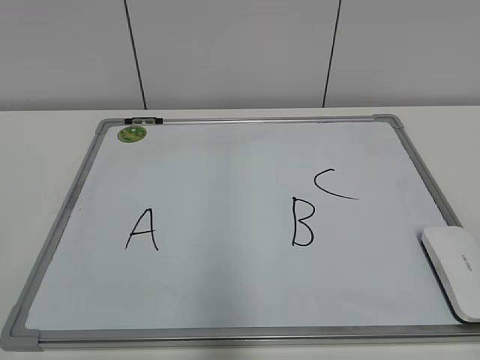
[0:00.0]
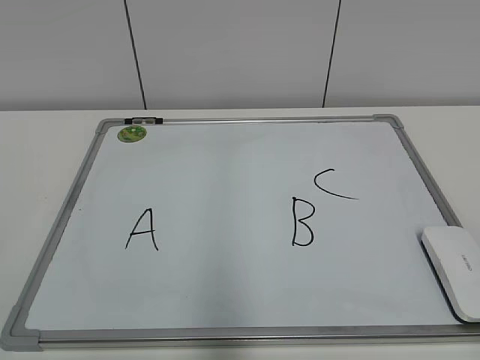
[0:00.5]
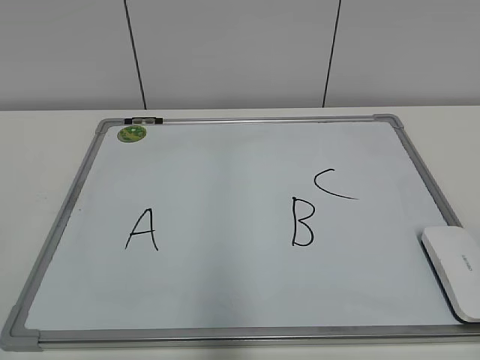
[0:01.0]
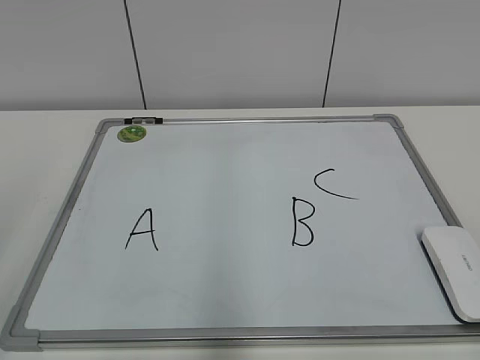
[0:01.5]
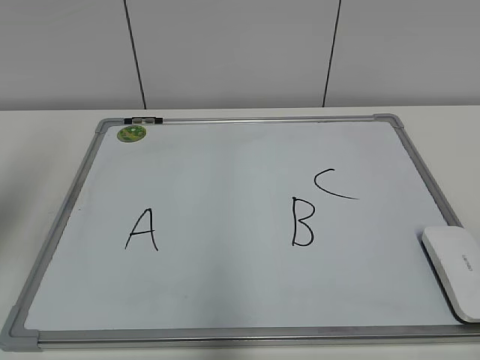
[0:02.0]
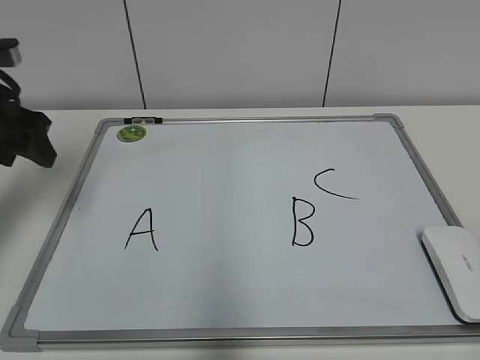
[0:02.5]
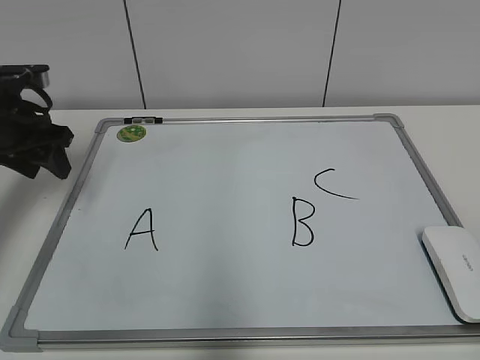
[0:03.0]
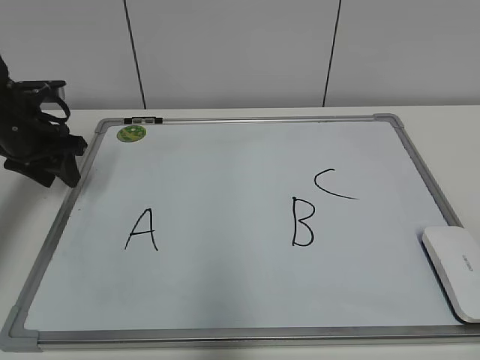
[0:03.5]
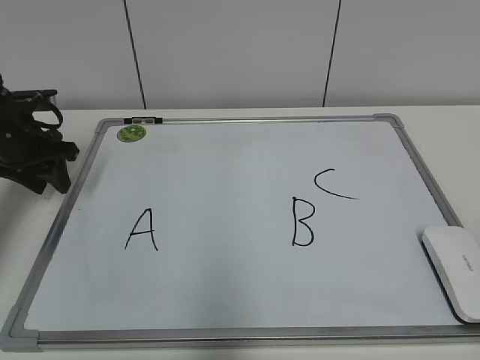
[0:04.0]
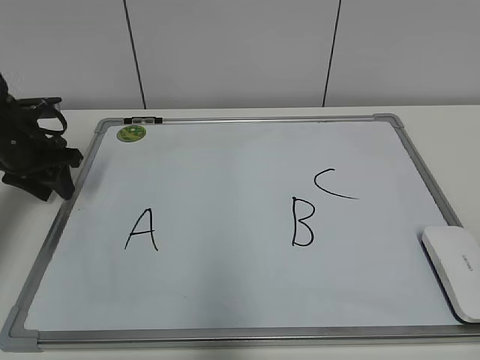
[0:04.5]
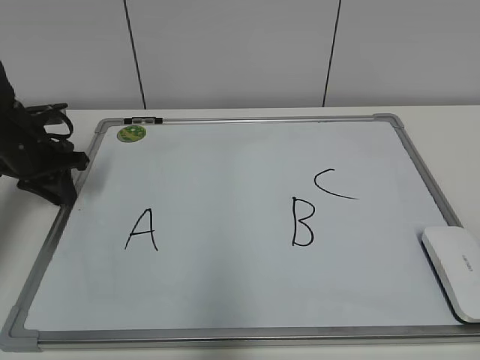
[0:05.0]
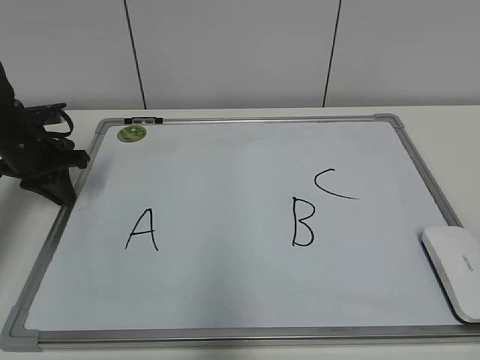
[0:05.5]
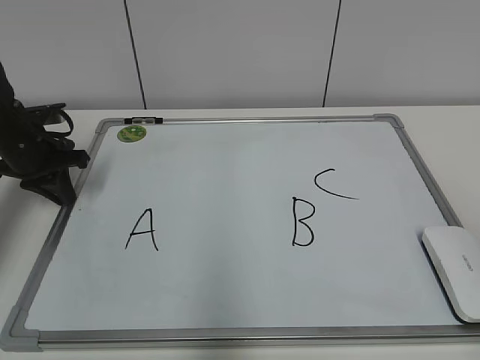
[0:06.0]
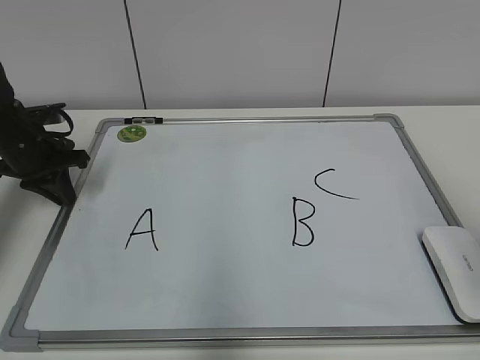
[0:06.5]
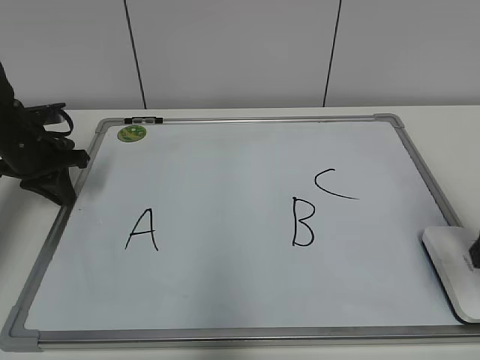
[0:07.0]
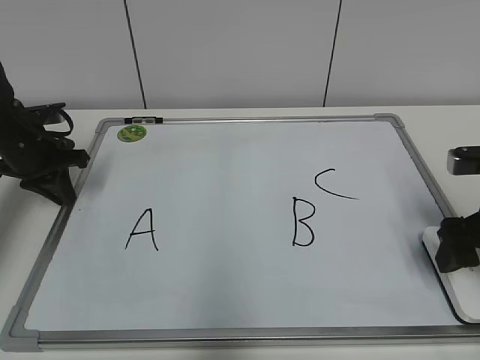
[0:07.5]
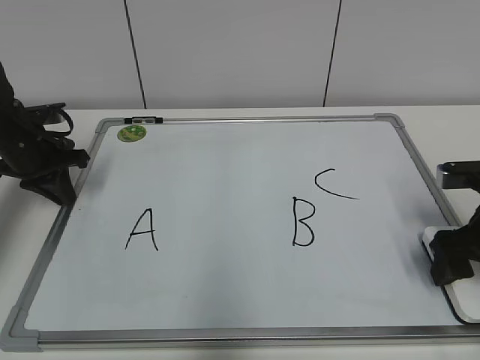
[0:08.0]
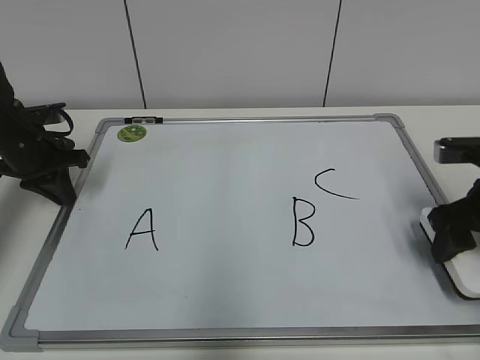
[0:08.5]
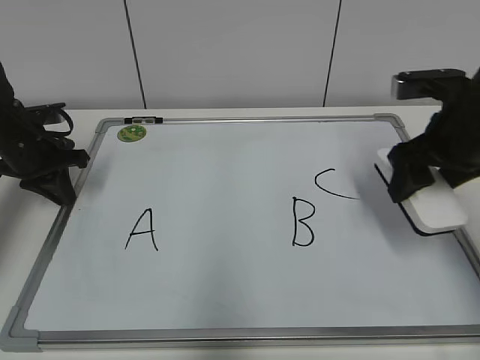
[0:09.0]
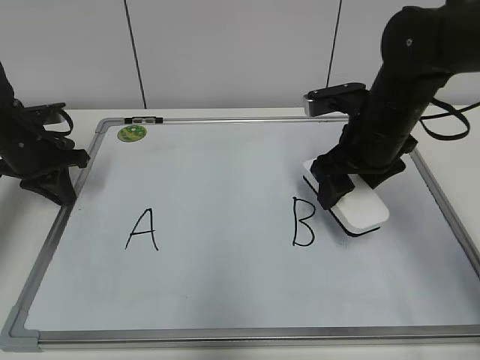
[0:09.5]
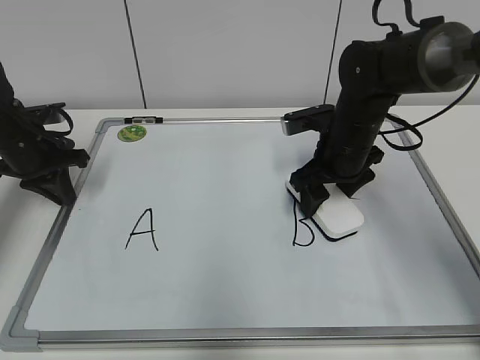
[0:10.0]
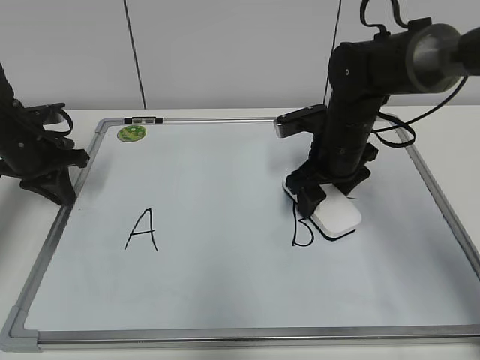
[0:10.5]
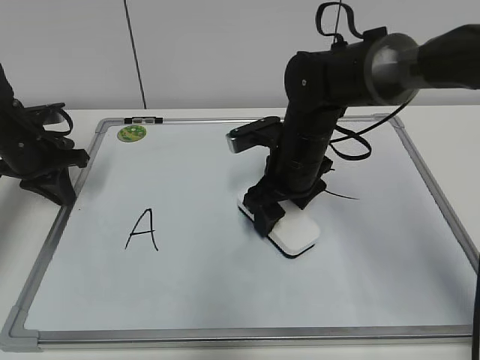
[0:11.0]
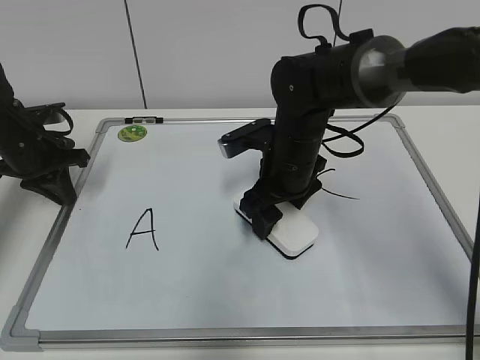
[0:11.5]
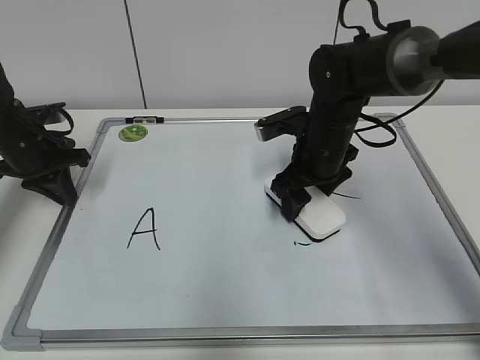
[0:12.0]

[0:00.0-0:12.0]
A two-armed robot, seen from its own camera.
Task of the whole recording: pick up the eraser on the blackboard and erase the letter "B".
Step, 0.0 to 5.0 s: Hold the drawing board steady with your left hand.
Step, 5.5 to 8.0 s: Grab the eraser with your right hand.
2.0 to 4.0 s: The left gripper is displaced forward and downward by approximately 25 cm, and closes its fingers.
4.0 to 6.0 s: The left gripper closes.
6.0 to 8.0 s: The right gripper moves forward and downward, about 30 cm.
8.0 to 10.0 s: The right gripper shifts roughly 20 cm to the left and forward, and closes.

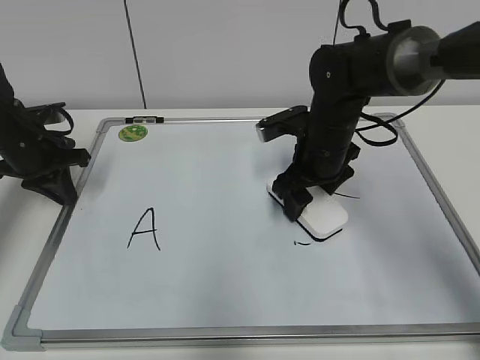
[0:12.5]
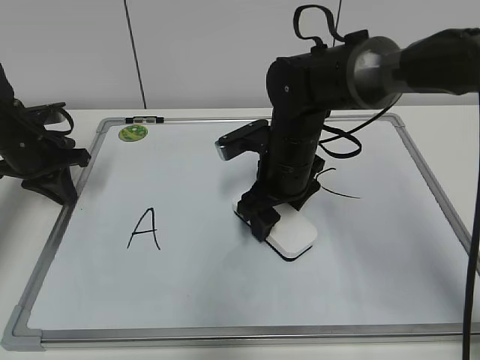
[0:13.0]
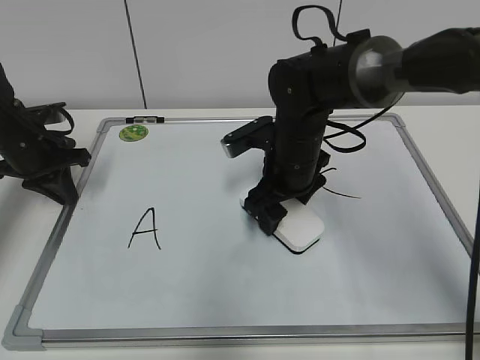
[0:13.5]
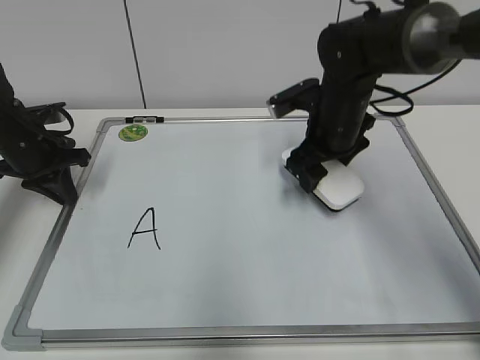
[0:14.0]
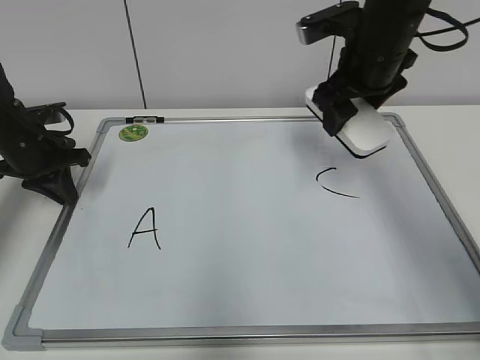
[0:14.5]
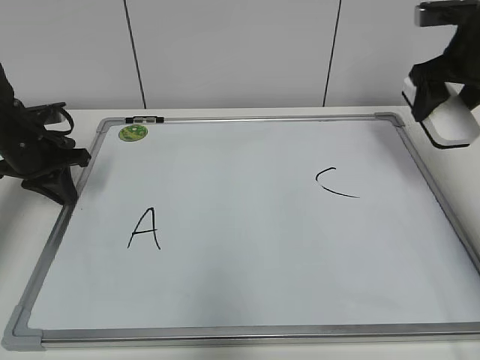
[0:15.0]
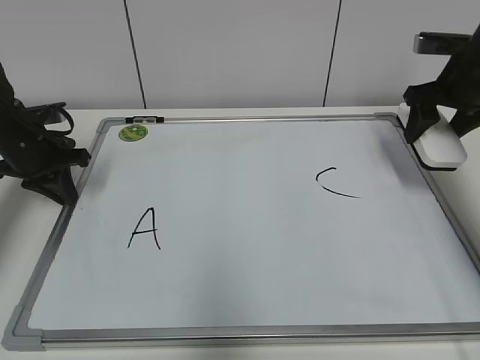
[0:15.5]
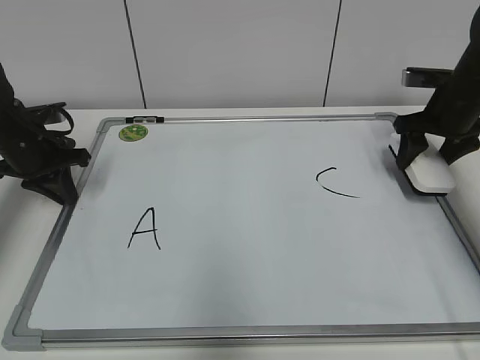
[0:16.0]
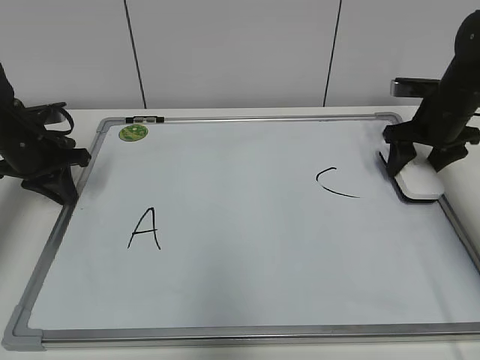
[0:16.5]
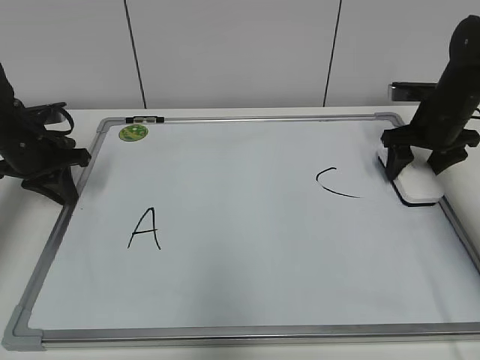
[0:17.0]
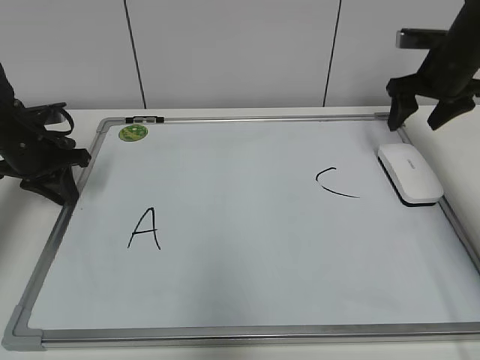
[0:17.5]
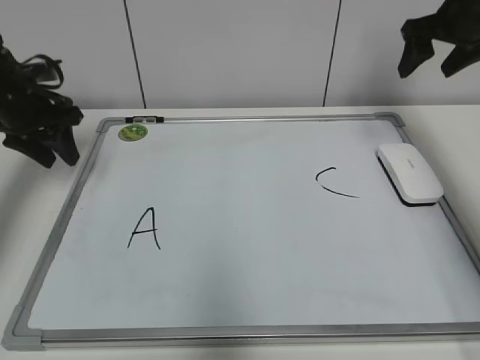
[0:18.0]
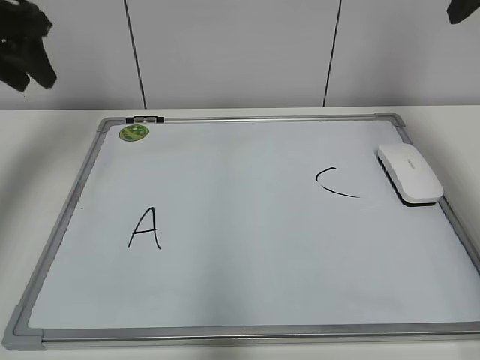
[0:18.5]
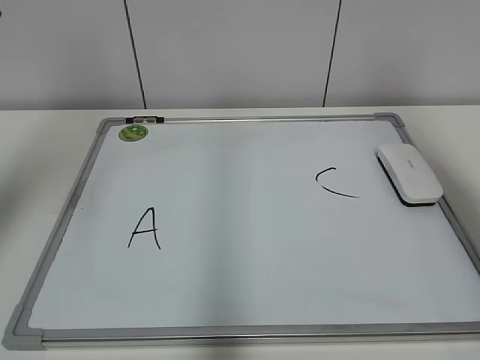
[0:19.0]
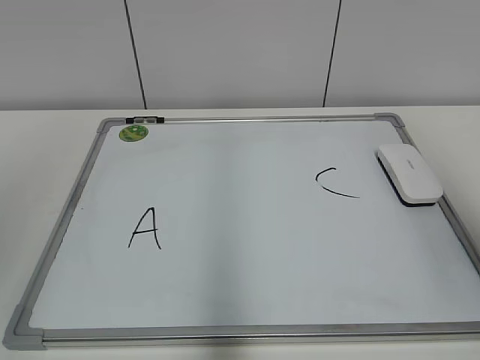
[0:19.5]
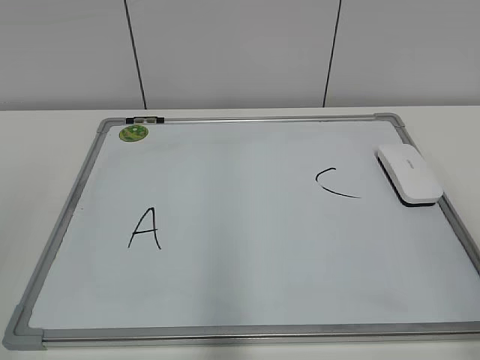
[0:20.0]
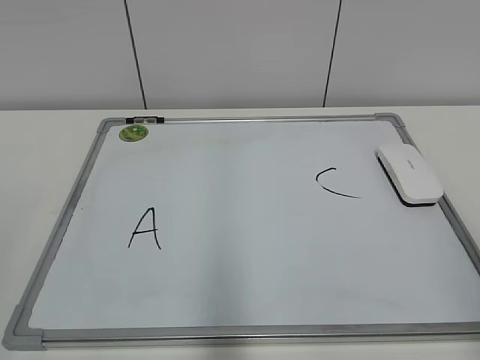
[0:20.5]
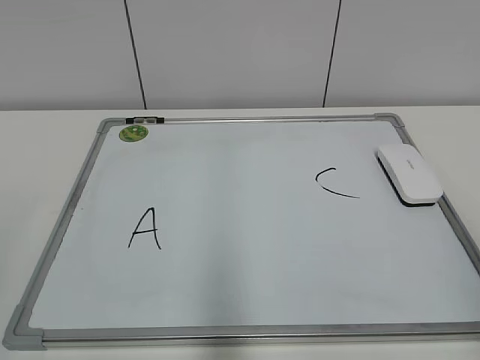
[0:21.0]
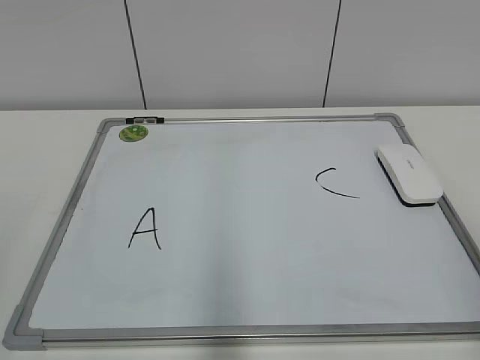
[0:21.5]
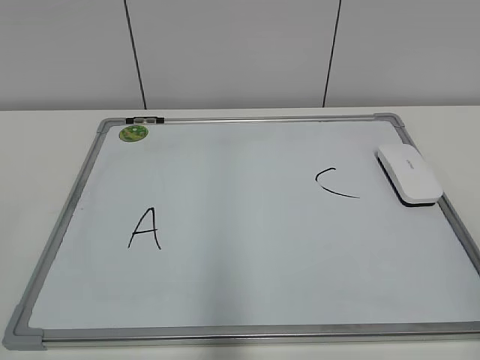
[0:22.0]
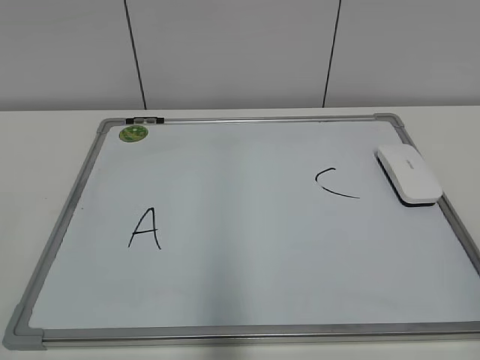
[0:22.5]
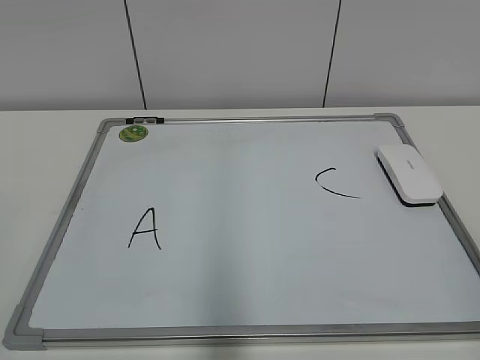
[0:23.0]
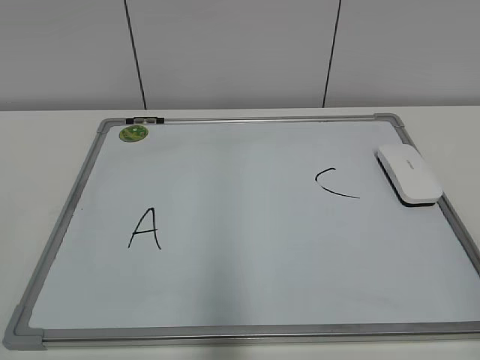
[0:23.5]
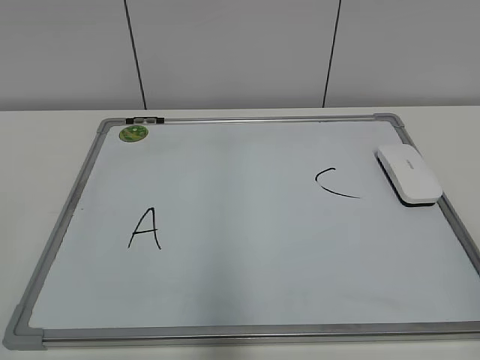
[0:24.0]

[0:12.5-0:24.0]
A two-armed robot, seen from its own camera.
Task of the whole recording: pick up the eraser on the blackboard and erase the letter "B".
Step, 14.0 to 16.5 s: Put down the eraser with your right hand.
12.5 to 14.5 s: The right gripper heads upward, covering about 10 cm.
14.5 to 16.5 s: The right gripper goes some 15 cm to the right and downward.
16.5 to 18.5 s: Both grippers travel together upward, approximately 20 cm. The left gripper opens up. Meanwhile the right gripper opens its fingers.
18.5 to 20.0 s: The grippers both shift backward by roughly 35 cm.

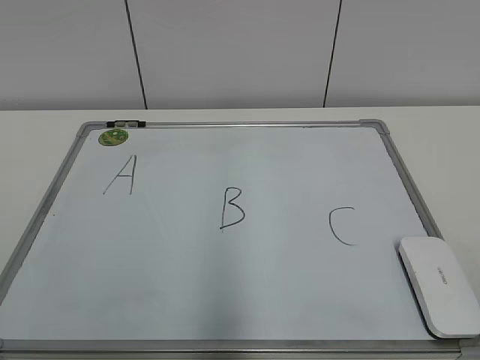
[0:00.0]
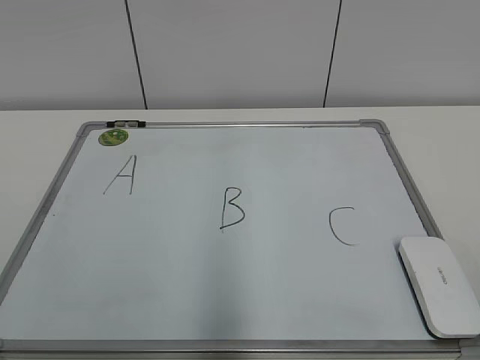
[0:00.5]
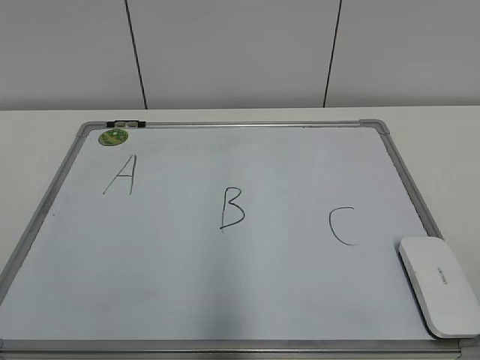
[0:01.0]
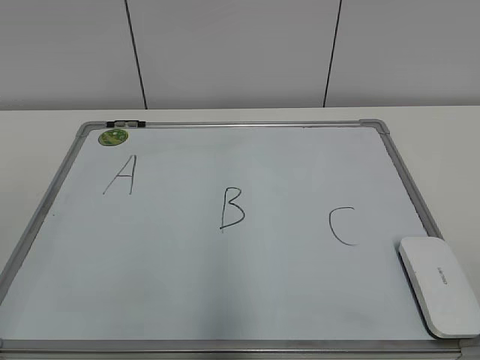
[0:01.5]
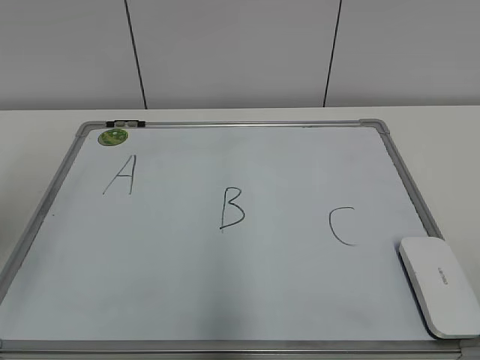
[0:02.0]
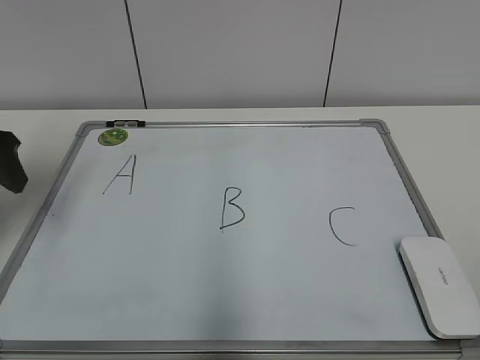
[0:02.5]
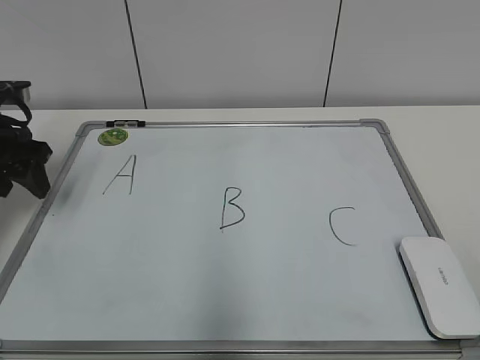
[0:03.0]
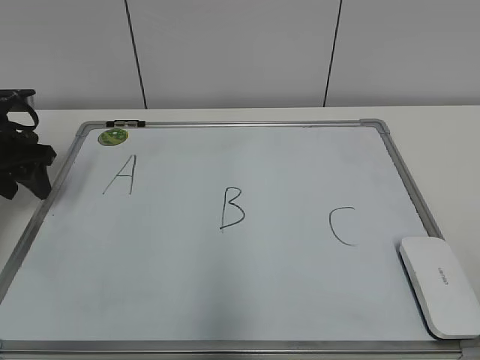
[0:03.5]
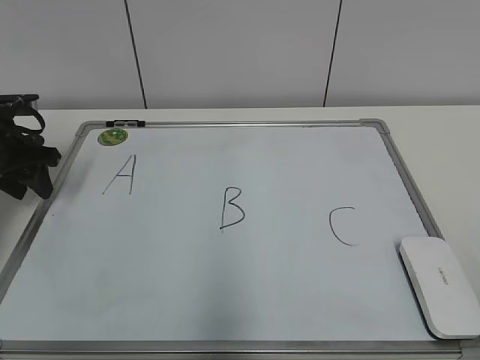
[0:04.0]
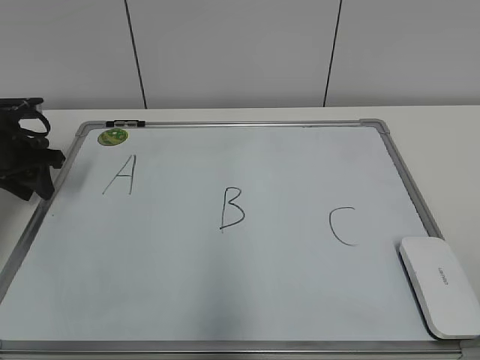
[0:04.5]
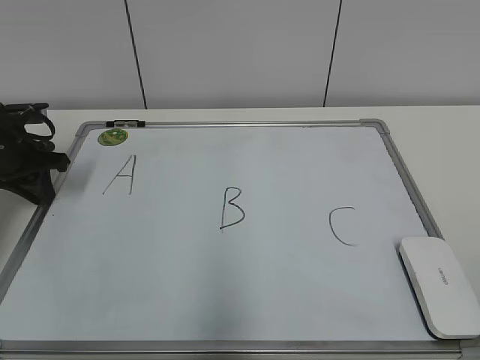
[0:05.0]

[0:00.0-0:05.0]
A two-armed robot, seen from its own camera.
Task of the whole recording: pick up the eraser on the blackboard and erase the letter "B".
Step, 0.0 to 5.0 s: Hold the drawing board steady with your left hand.
2.5 to 5.0 s: The left gripper goes about 15 cm downward and forward, and closes up.
